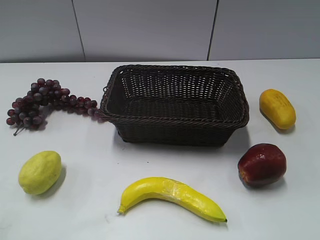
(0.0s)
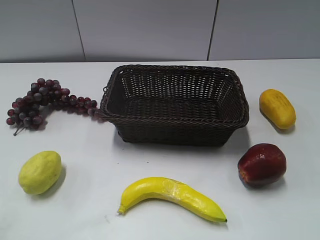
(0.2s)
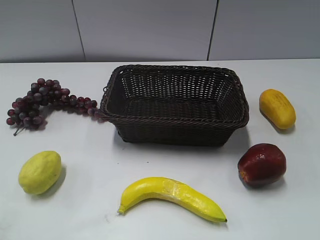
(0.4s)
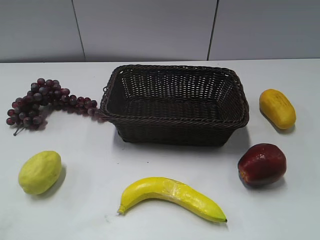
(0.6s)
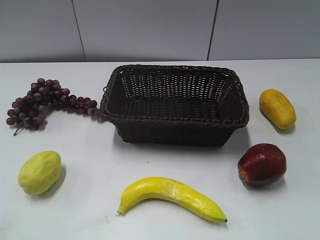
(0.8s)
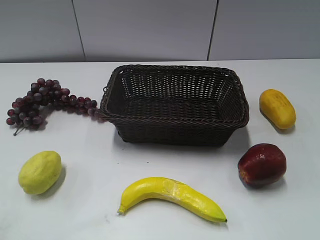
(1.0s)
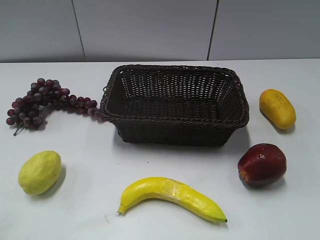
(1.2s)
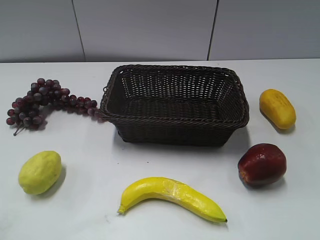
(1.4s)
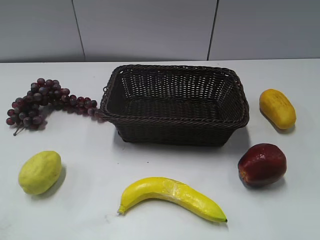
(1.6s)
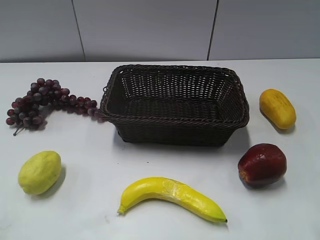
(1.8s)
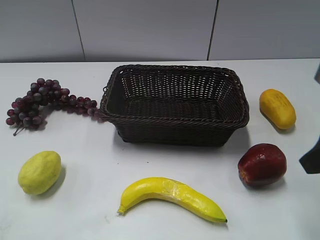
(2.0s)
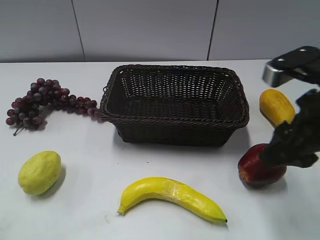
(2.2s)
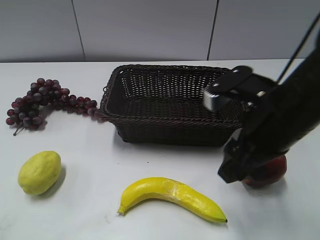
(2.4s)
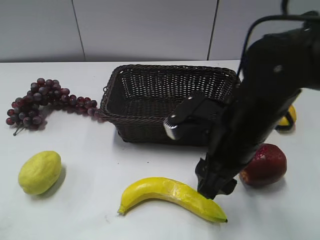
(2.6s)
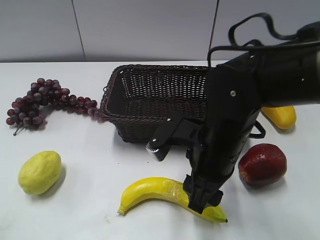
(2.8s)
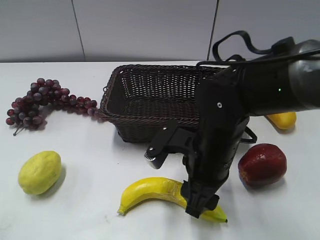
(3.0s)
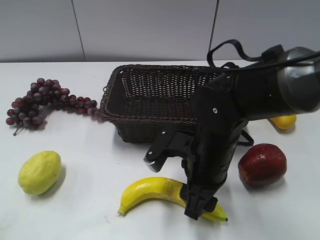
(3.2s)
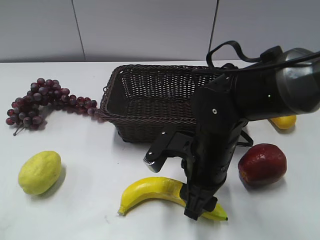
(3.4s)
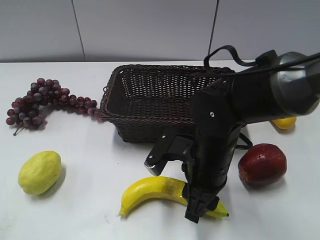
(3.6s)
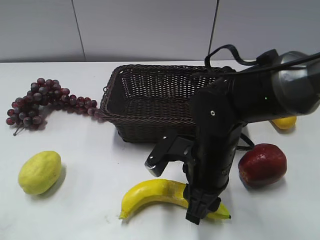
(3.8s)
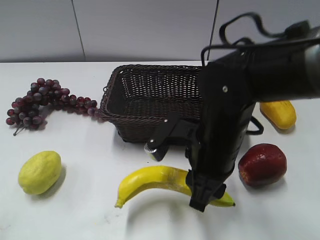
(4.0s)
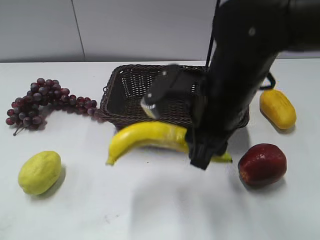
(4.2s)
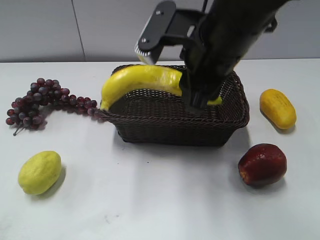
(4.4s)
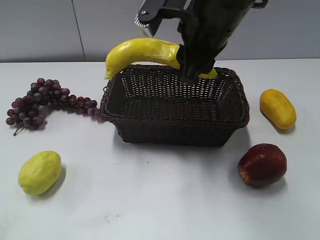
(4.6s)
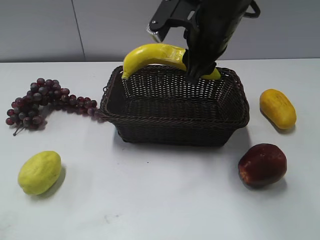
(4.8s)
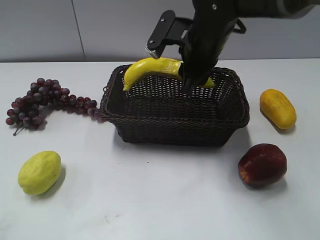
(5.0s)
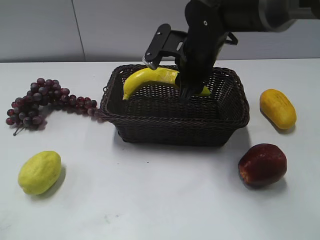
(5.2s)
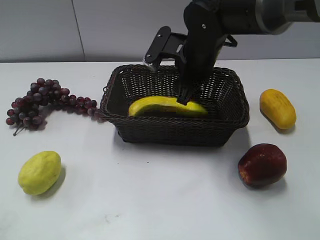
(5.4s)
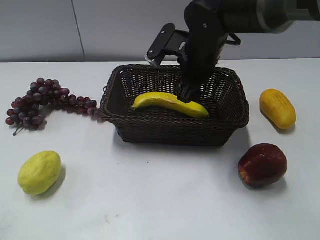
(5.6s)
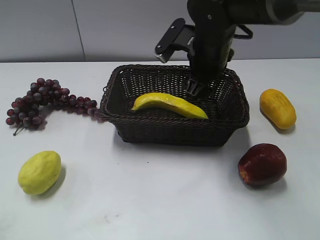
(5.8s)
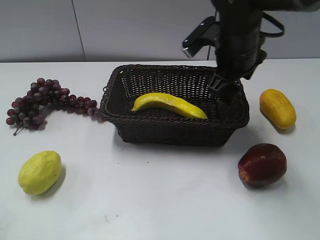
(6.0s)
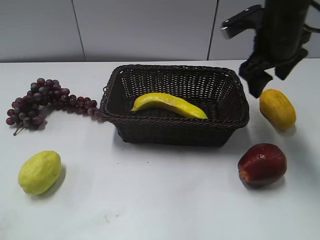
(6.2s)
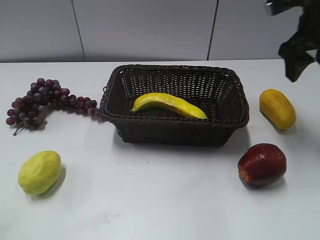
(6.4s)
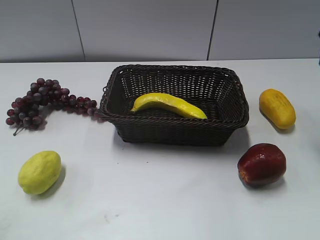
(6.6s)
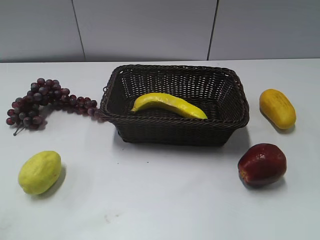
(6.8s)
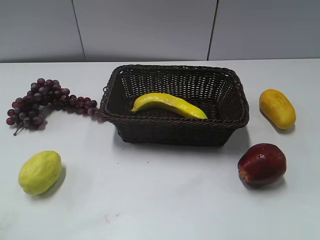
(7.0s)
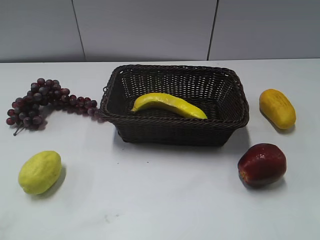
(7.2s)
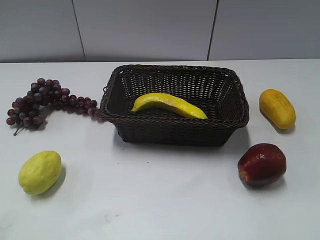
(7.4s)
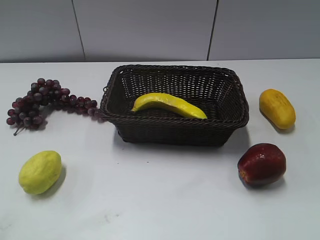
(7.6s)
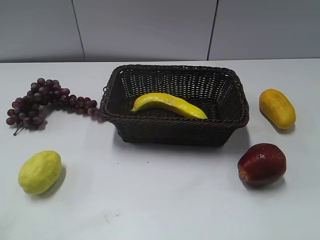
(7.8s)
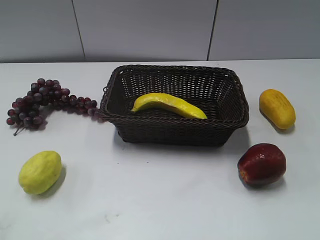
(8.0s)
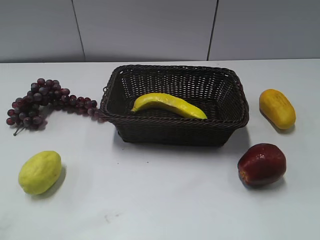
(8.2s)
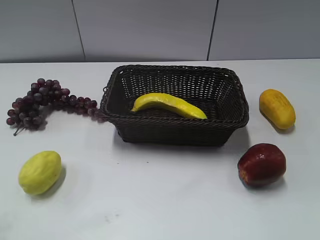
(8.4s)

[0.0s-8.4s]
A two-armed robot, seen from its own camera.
1.4s to 2.8s: The right gripper moves to the left, forward and downward, some 30 cm.
2.8s to 4.2s: The right gripper is displaced upward by about 10 cm, and closes its fingers.
4.2s to 5.6s: The right gripper shifts about 15 cm forward, and opens its fingers.
5.6s to 7.0s: The right gripper goes some 30 cm to the right, backward and upward.

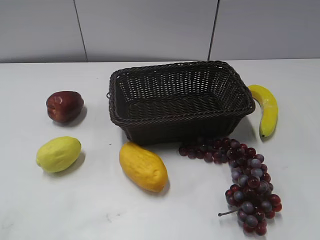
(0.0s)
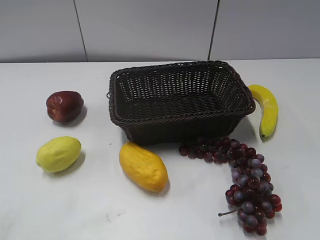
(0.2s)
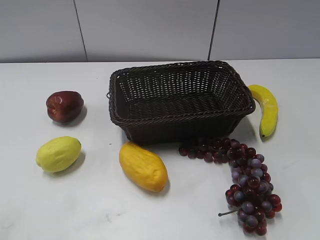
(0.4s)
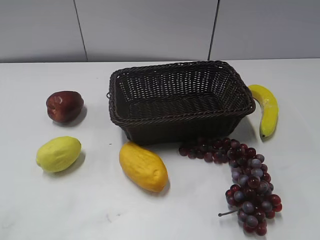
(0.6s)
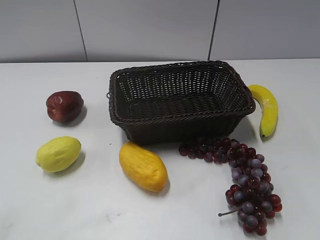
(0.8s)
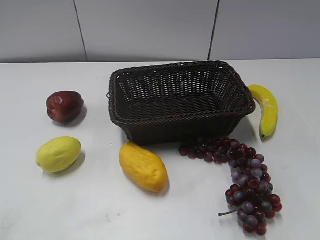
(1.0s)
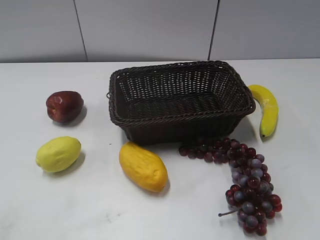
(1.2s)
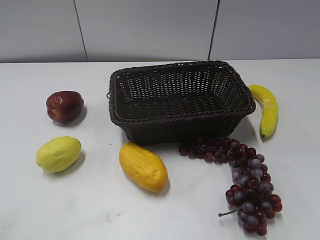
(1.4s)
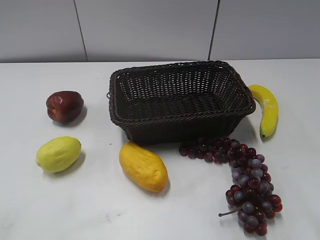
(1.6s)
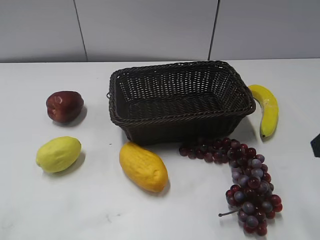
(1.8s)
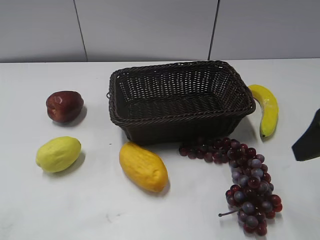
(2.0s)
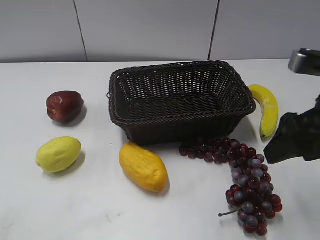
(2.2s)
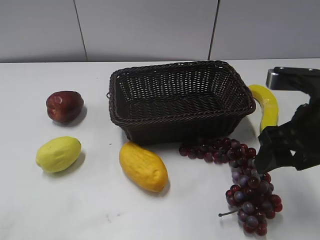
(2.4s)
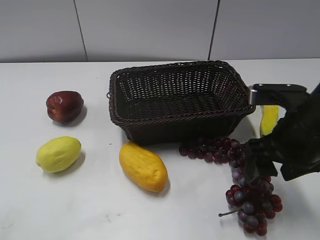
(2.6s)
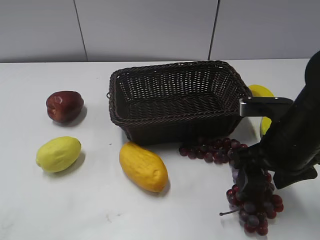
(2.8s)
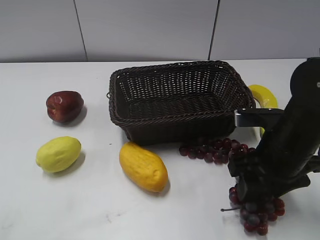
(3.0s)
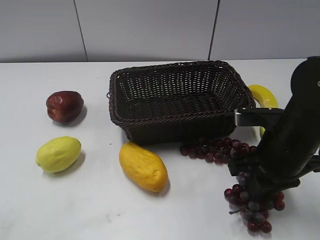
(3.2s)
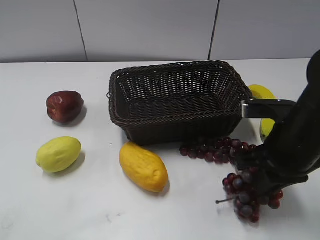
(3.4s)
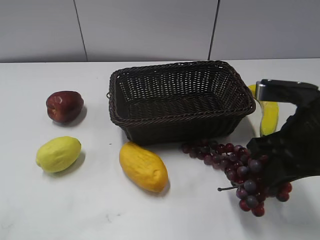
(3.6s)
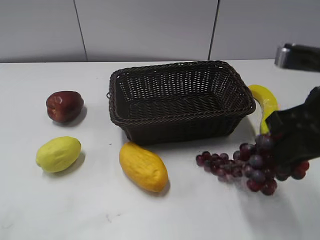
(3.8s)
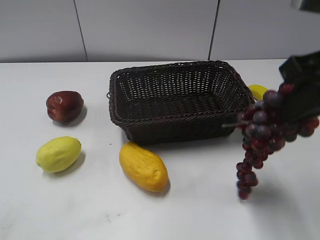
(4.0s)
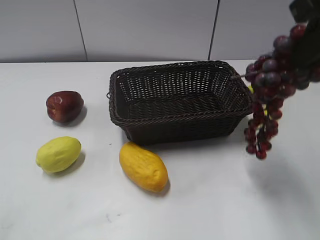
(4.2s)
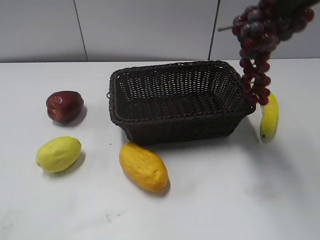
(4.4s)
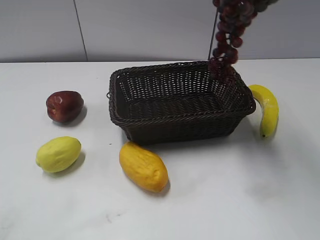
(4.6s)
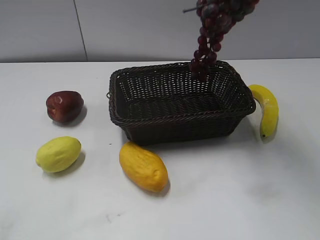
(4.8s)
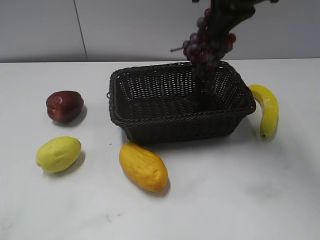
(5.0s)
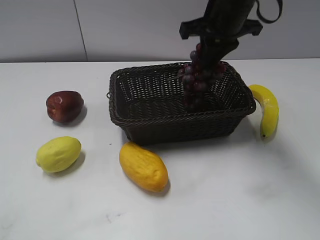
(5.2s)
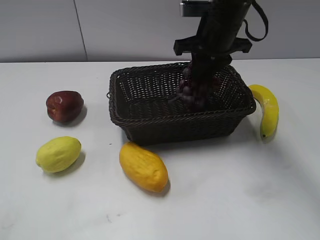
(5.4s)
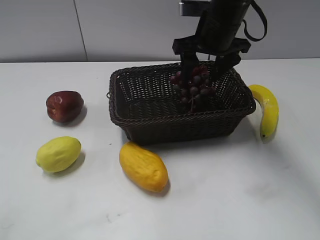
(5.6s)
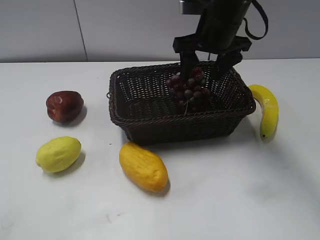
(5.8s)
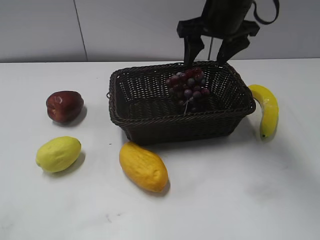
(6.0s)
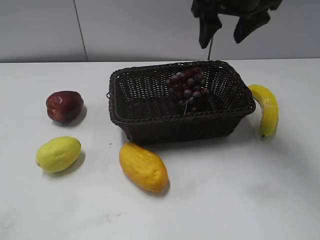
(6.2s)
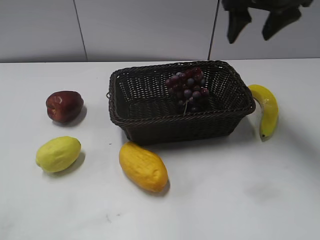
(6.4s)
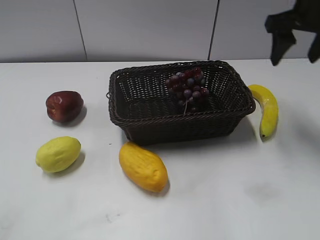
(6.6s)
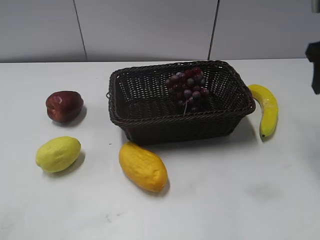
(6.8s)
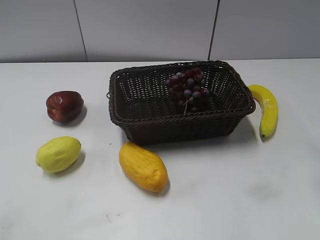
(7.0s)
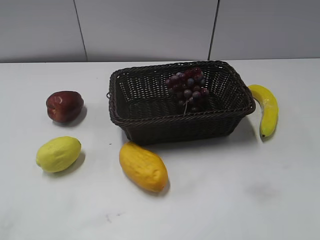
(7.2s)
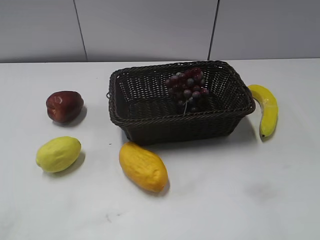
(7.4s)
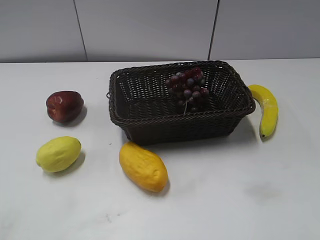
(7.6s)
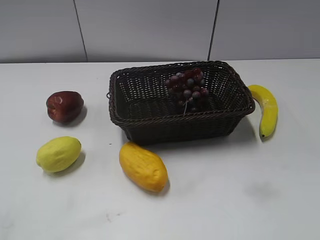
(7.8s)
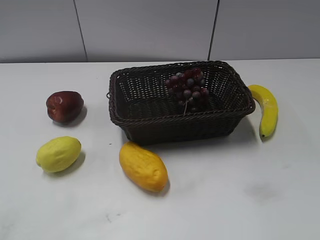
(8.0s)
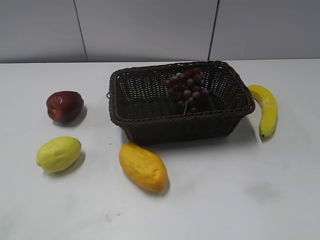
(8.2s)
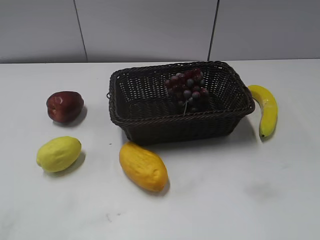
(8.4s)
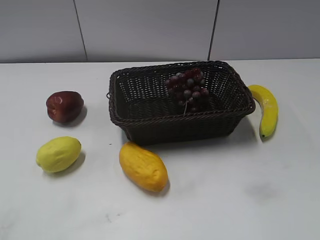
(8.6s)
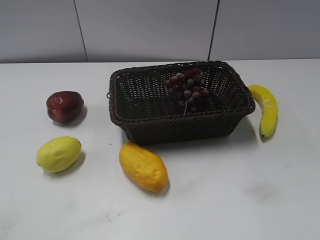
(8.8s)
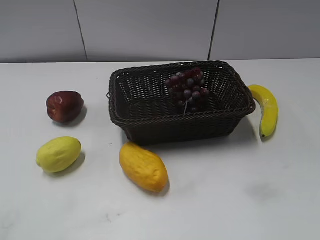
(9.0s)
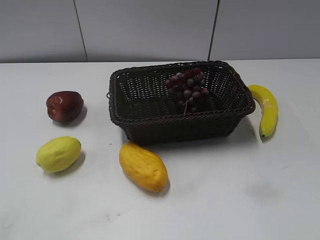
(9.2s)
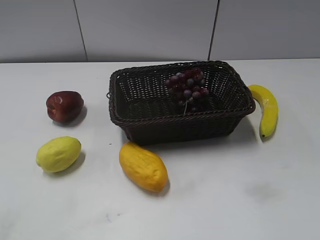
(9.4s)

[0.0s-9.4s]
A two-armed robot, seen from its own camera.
Step, 1.8s to 3.2s: Grasp the grape with right gripper.
Step, 3.4s to 5.8s: Place the grape in the basket with right gripper.
1.6s to 3.2s: The right gripper shifts roughly 10 cm to the left and downward, and closes up.
3.2s to 4.8s: The right gripper heads forward, upward and to the left, covering approximately 20 cm.
4.8s to 6.2s: The right gripper is displaced to the right by about 10 cm, and opens up.
6.2s to 7.8s: The right gripper goes approximately 35 cm backward.
